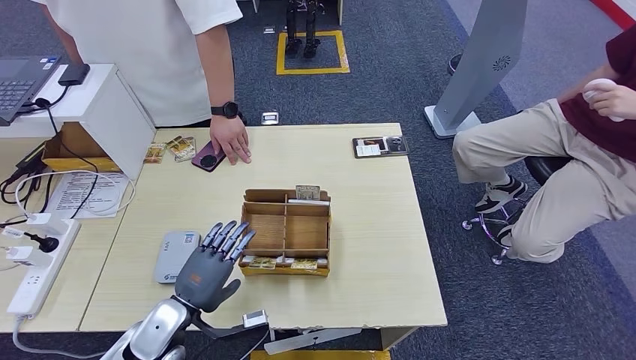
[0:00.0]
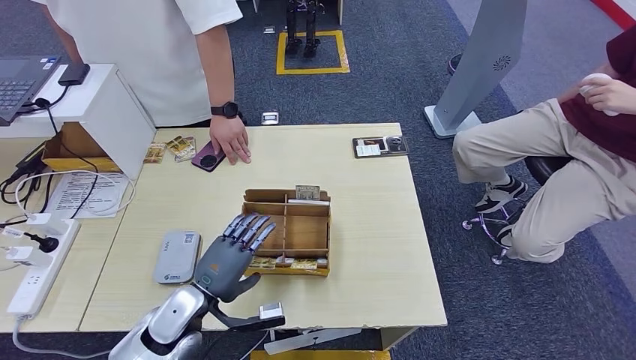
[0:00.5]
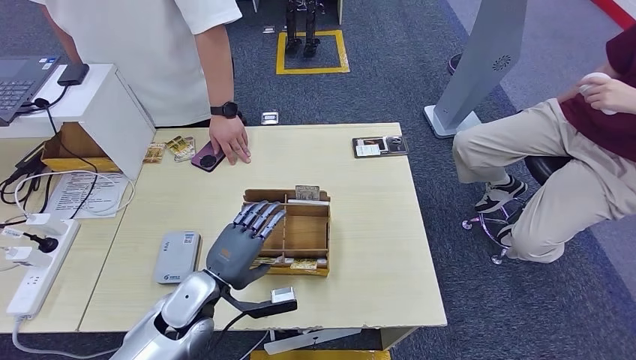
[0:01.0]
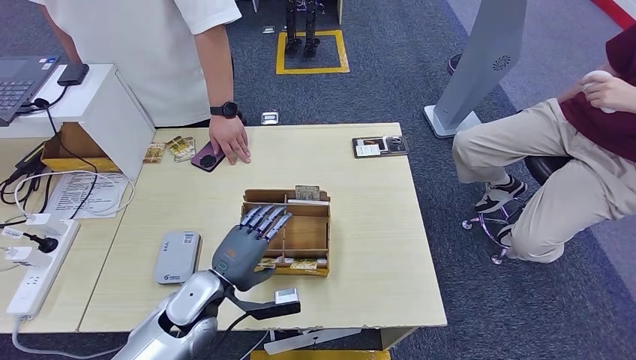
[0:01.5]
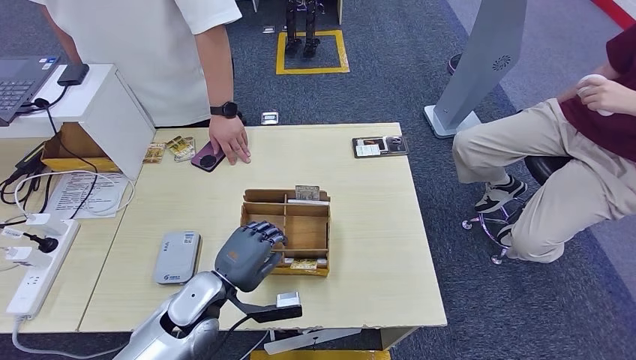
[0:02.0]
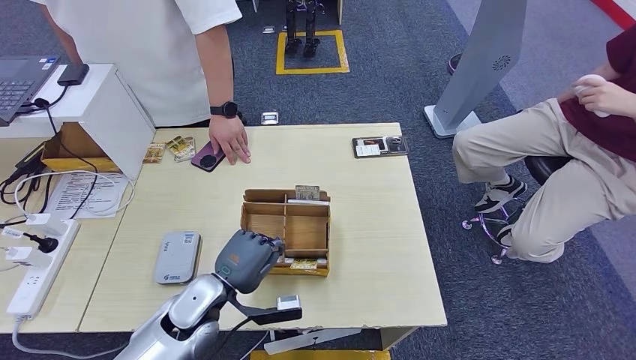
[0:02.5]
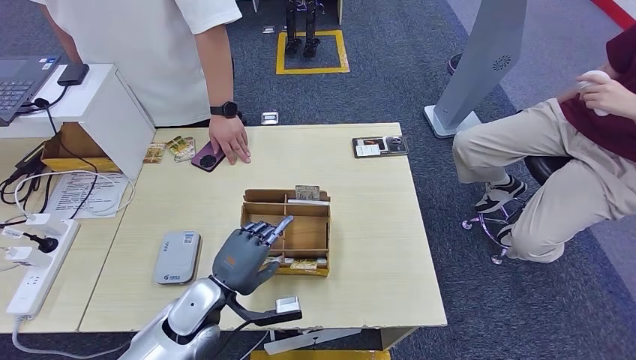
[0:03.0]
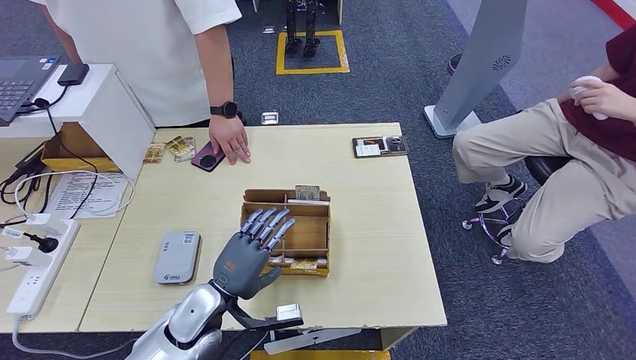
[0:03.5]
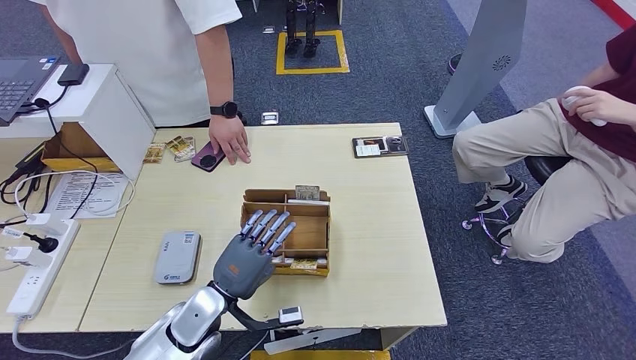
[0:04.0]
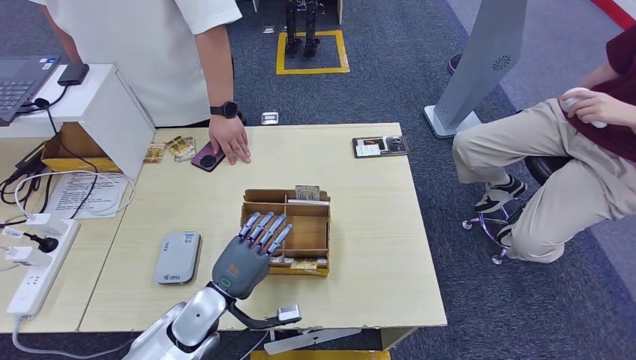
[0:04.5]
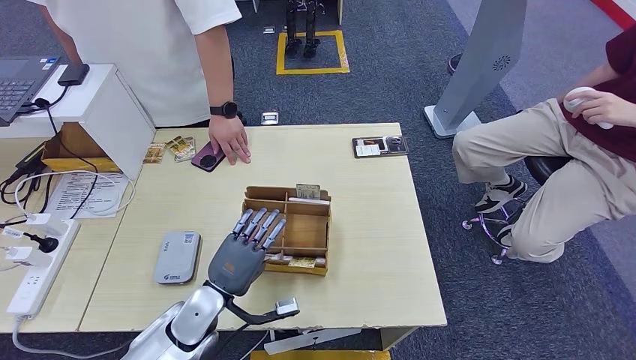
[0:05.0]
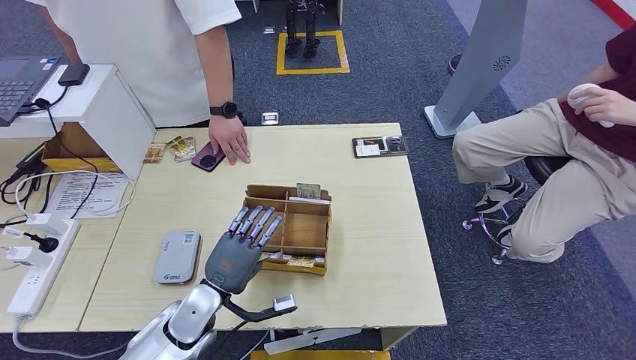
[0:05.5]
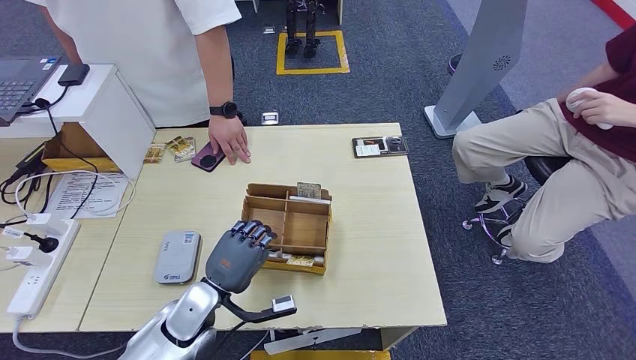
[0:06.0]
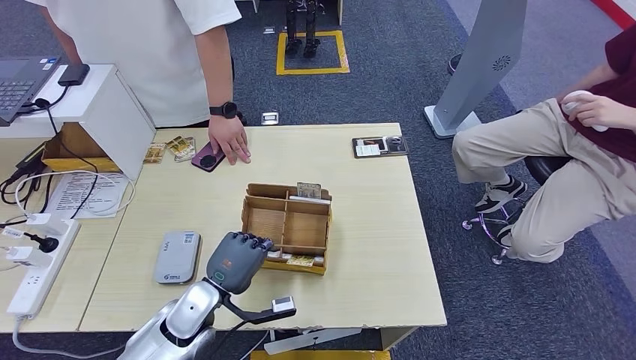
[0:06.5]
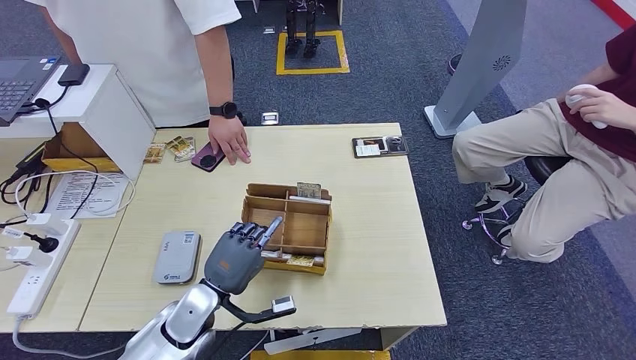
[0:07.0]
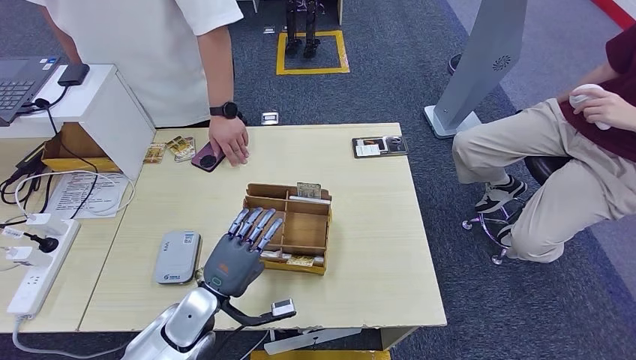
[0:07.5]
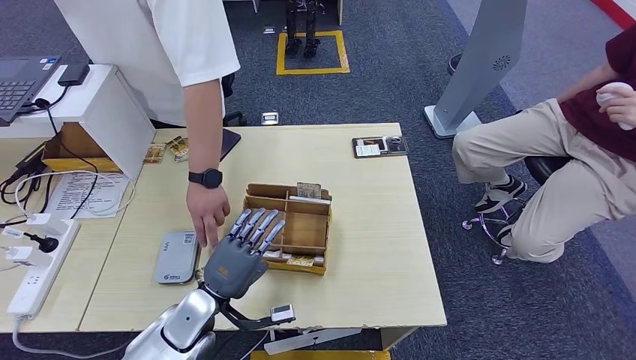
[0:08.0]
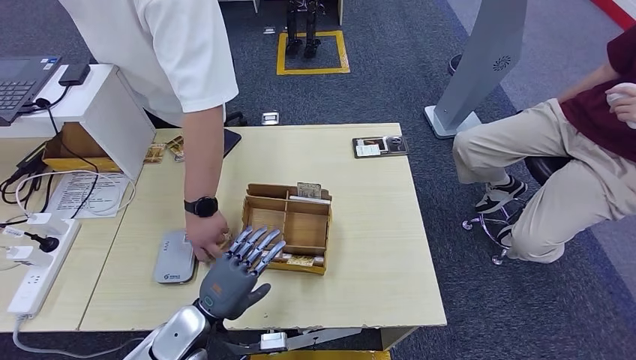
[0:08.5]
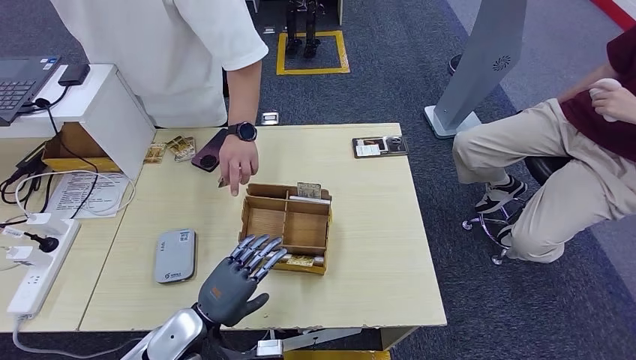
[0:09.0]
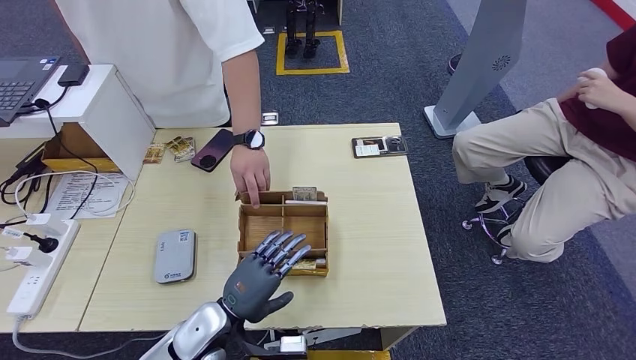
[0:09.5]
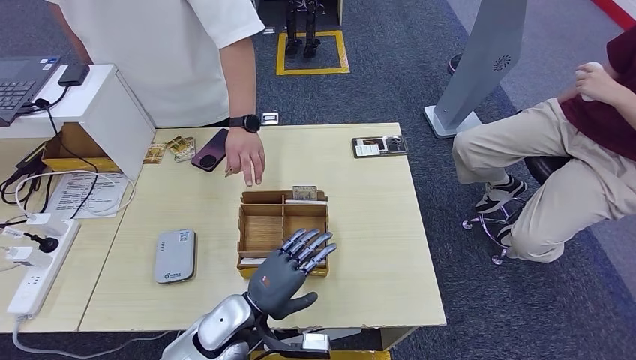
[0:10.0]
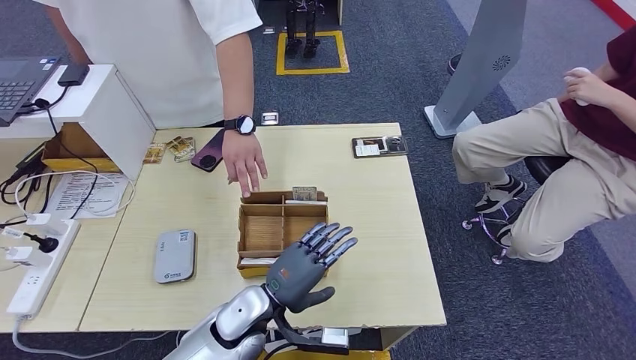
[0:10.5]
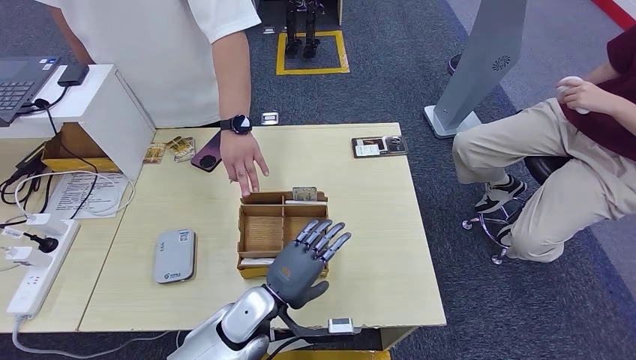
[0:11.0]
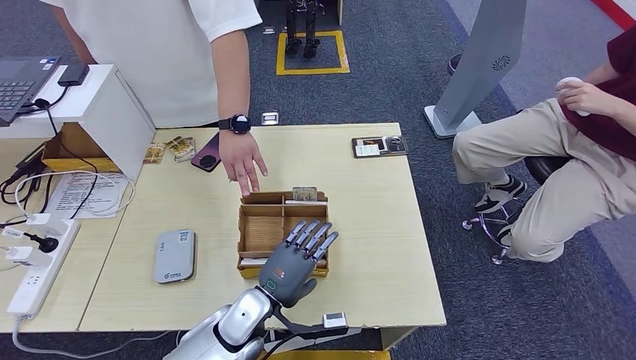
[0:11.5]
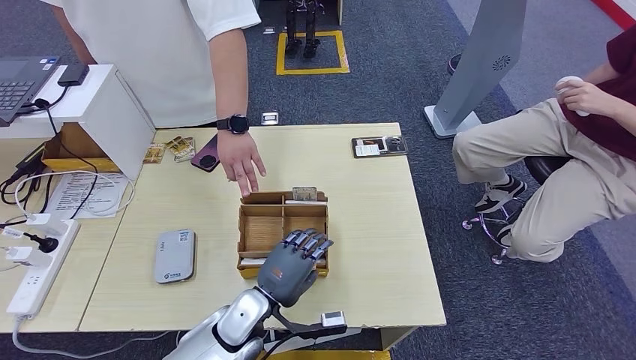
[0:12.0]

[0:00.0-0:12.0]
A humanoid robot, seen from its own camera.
0:00.0 to 0:02.0: The left hand moves to the right, approximately 5 cm.
0:02.0 to 0:04.0: The hands stay close to where they were, moving slightly.
0:04.0 to 0:08.0: The hands stay close to where they were, moving slightly.
0:08.0 to 0:10.0: The left hand is displaced to the right by approximately 5 cm.
0:10.0 to 0:12.0: The hands make only small movements.

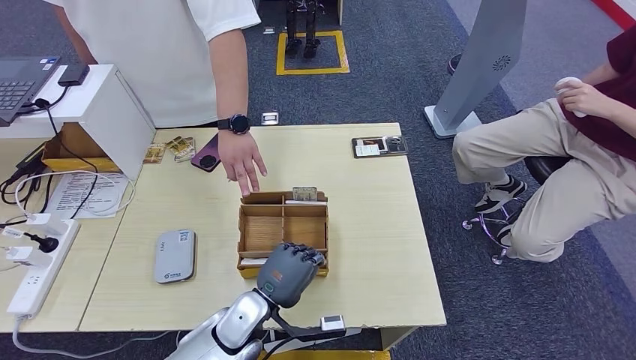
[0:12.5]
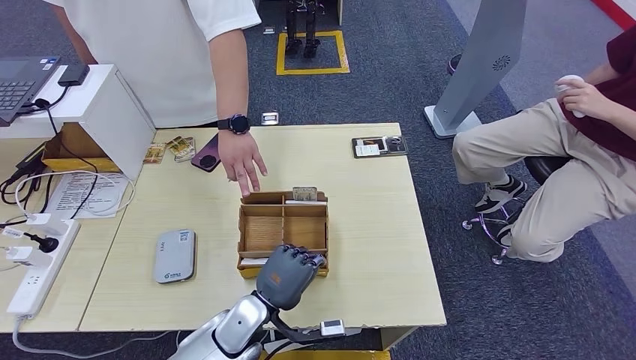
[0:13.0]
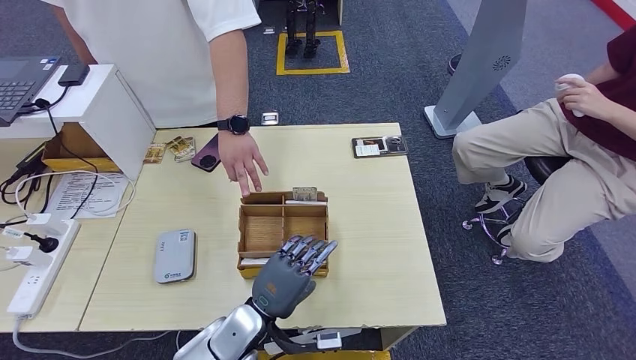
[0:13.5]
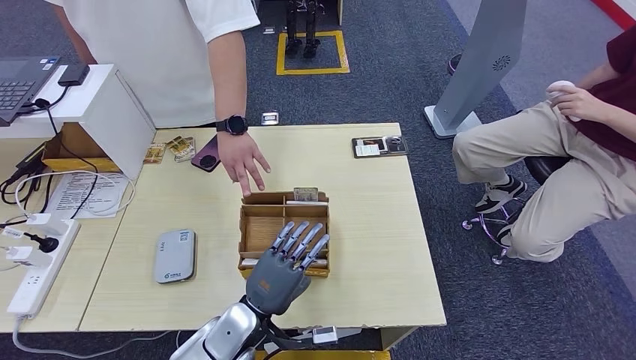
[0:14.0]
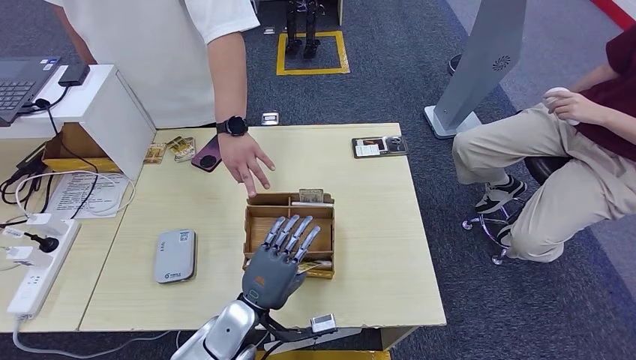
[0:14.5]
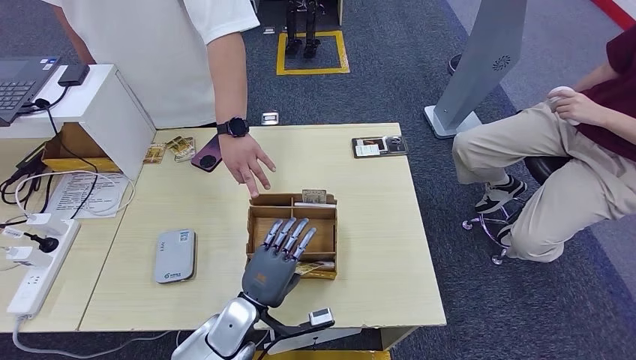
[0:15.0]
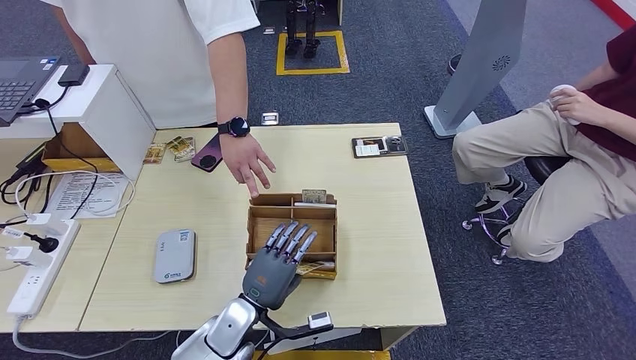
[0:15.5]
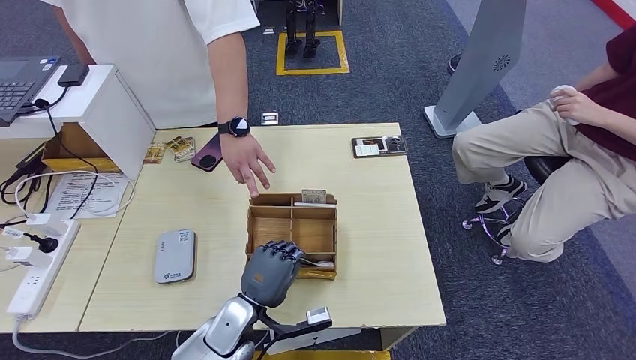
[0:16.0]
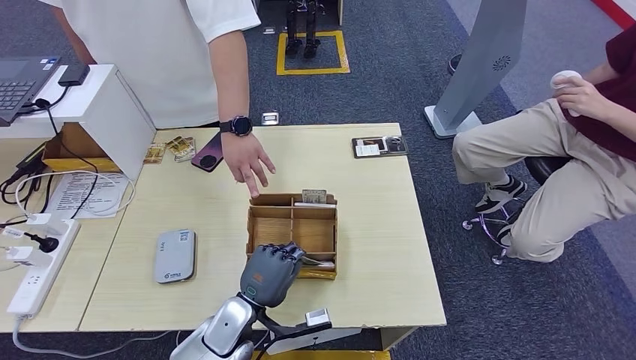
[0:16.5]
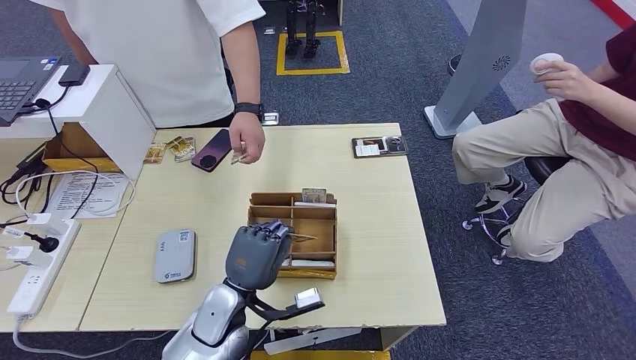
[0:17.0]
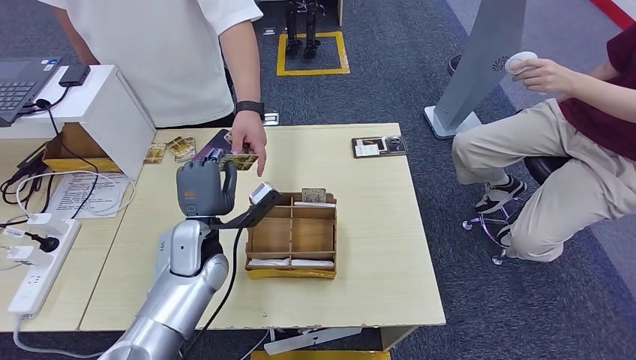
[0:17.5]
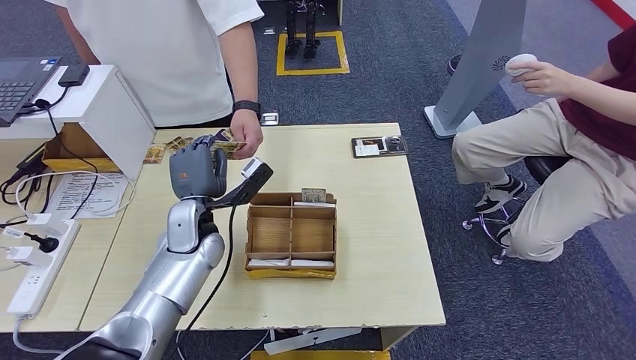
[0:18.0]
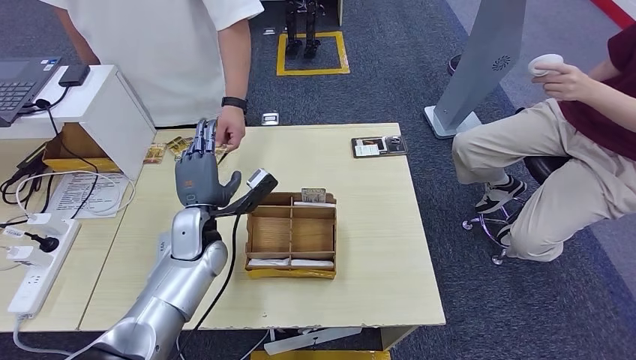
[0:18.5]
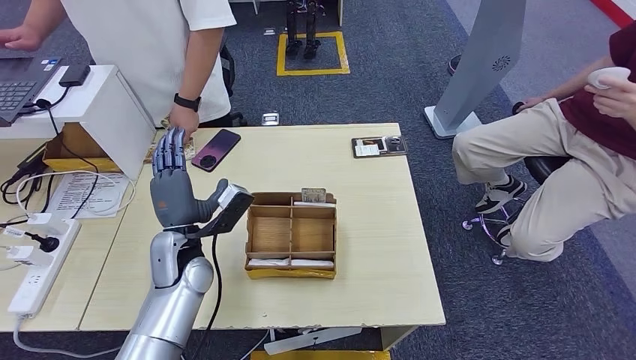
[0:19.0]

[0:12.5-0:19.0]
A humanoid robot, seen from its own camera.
Step, 0:12.5 to 0:17.0: Pick up the room key from the key card box.
Step, 0:17.5 to 0:19.0: Hand the room key to the person.
0:12.5 to 0:17.0: There are only small adjustments of the hands.
0:17.0 to 0:19.0: The left hand shifts some 15 cm forward, to the left and upward.
